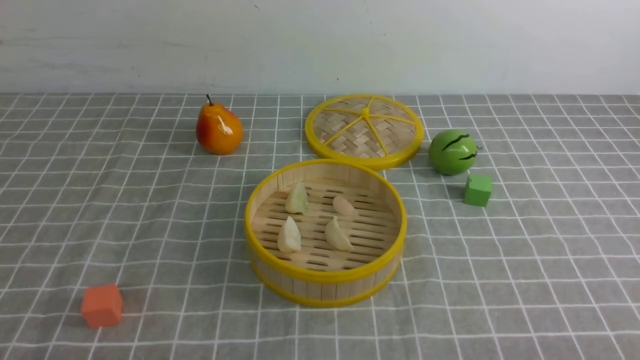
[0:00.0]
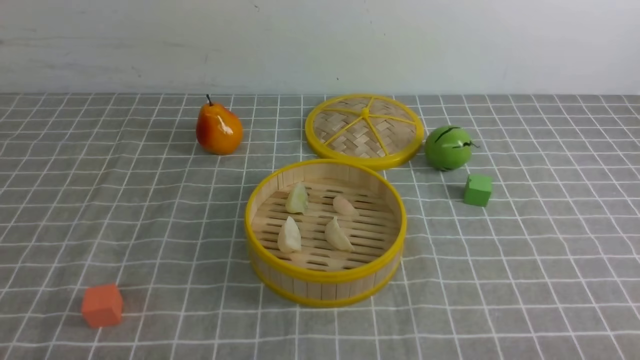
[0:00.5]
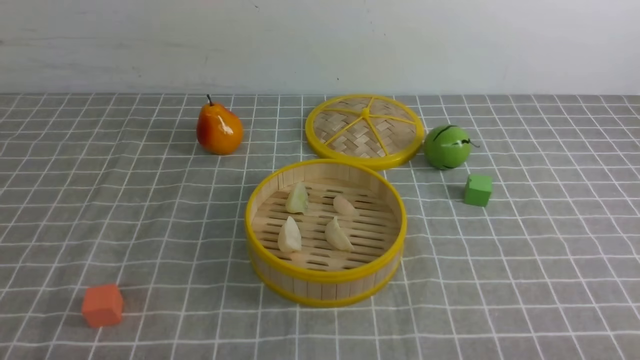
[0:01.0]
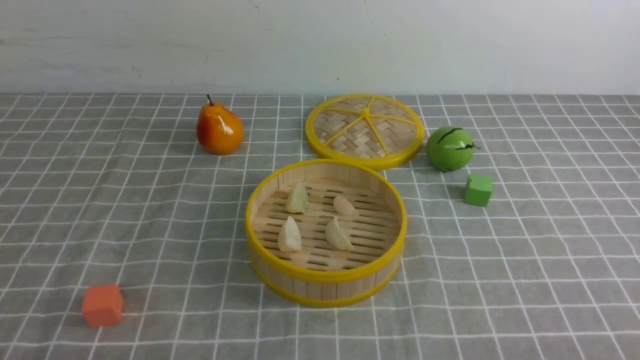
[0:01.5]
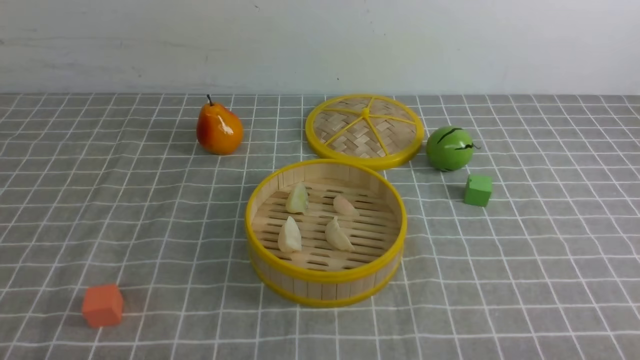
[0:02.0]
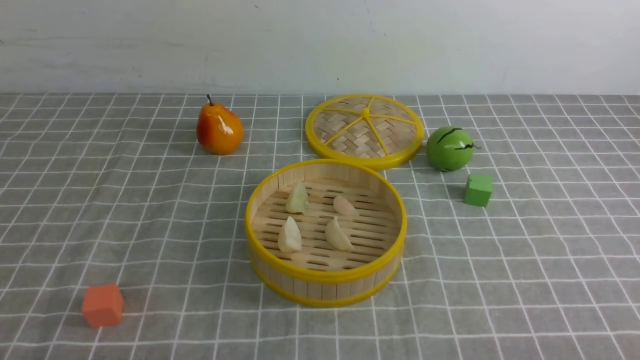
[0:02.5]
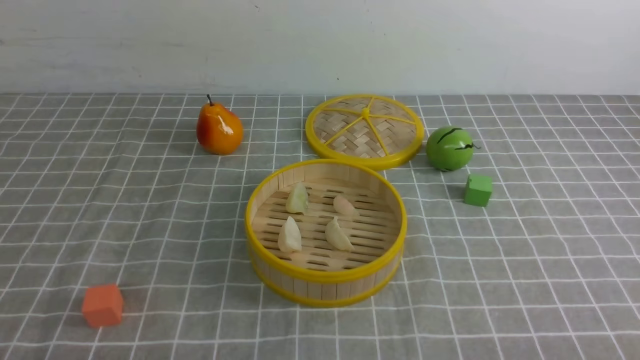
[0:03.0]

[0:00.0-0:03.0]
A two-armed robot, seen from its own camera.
Task of the whole recording: put the dumplings into the steamer on the table with the grey tablecloth.
0:00.0 to 0:03.0: Both grippers stay put.
